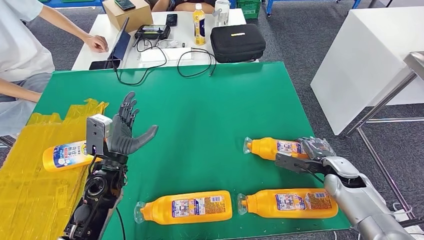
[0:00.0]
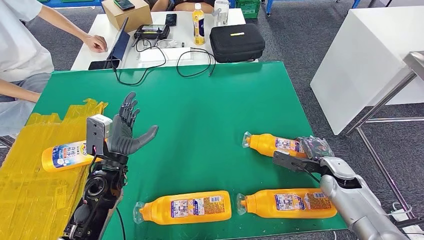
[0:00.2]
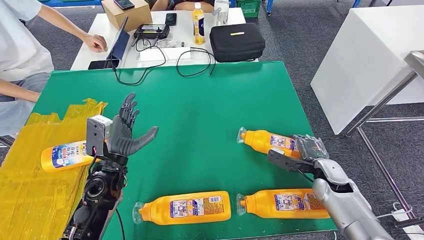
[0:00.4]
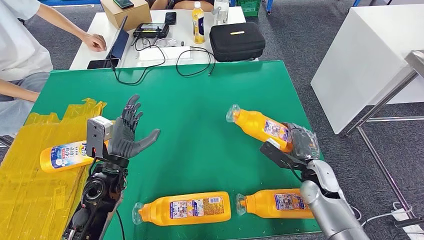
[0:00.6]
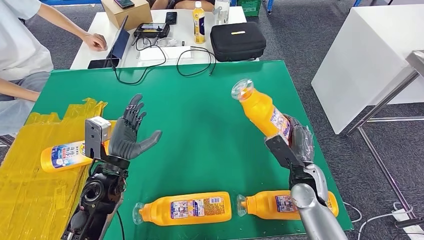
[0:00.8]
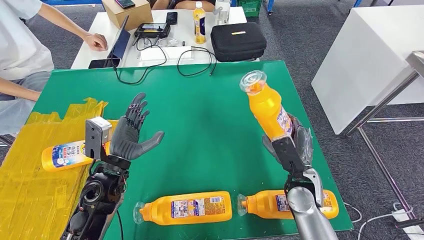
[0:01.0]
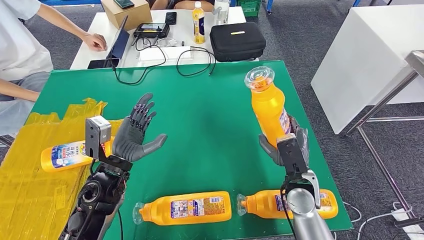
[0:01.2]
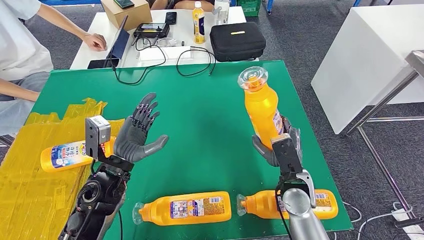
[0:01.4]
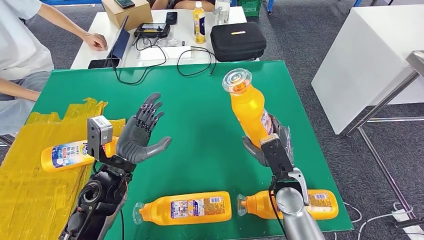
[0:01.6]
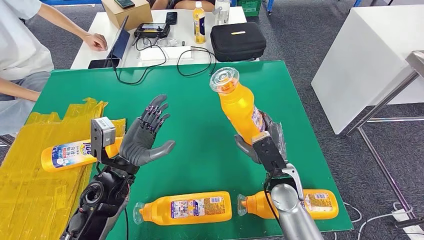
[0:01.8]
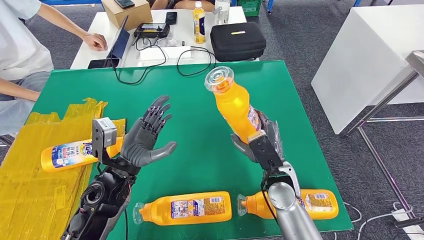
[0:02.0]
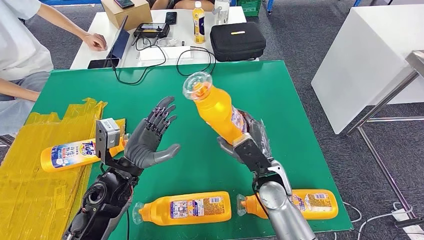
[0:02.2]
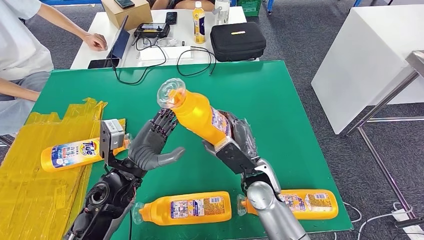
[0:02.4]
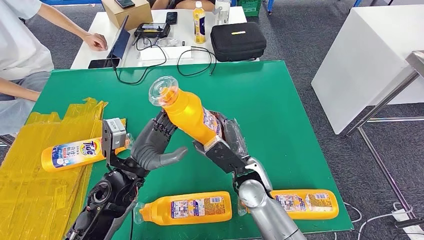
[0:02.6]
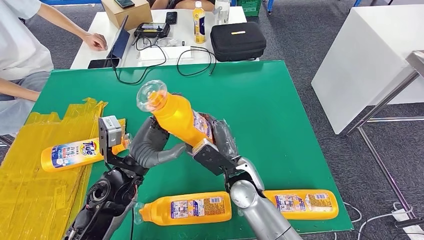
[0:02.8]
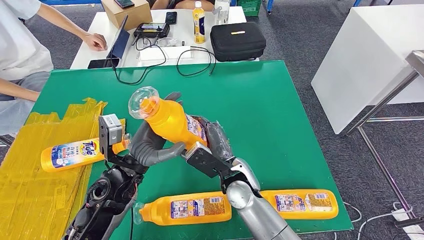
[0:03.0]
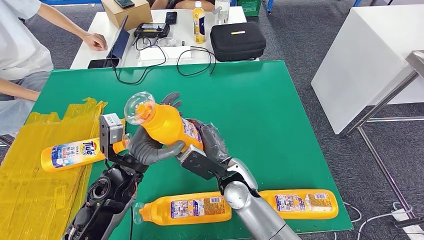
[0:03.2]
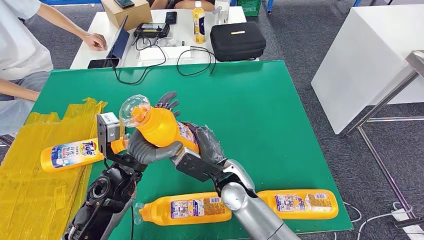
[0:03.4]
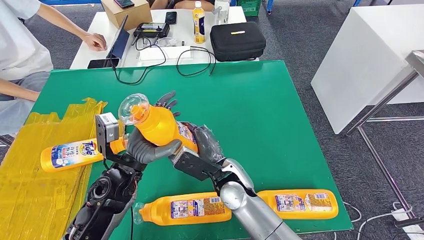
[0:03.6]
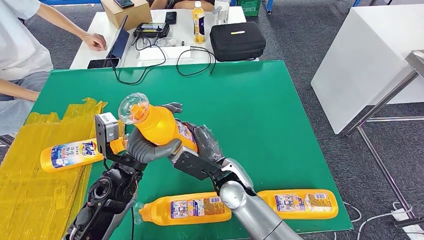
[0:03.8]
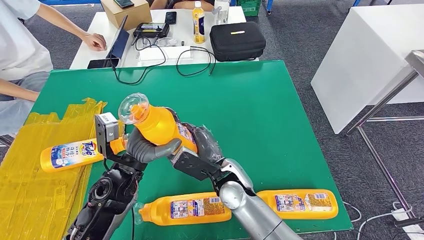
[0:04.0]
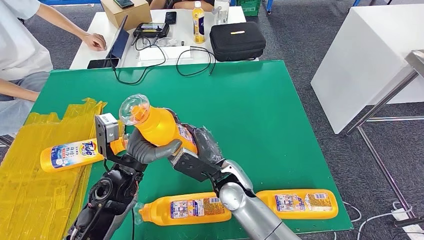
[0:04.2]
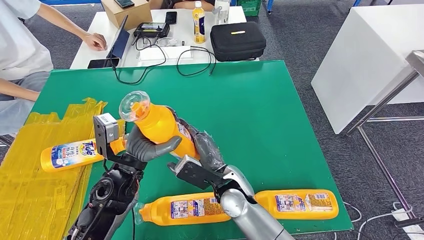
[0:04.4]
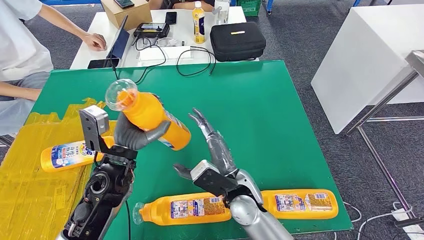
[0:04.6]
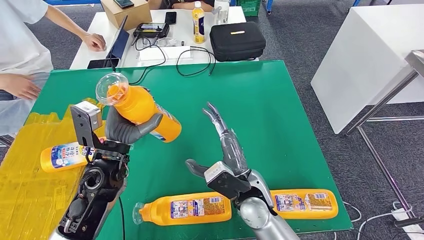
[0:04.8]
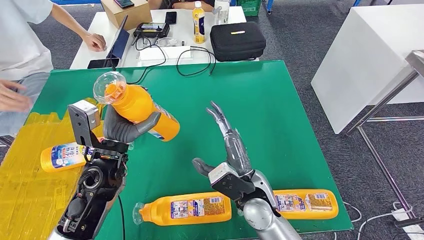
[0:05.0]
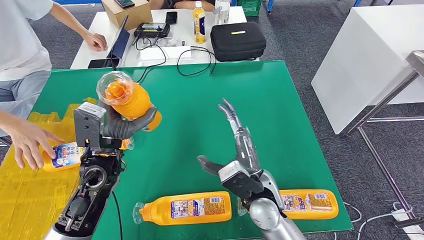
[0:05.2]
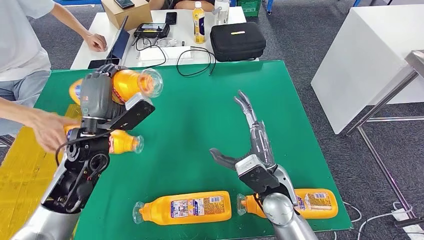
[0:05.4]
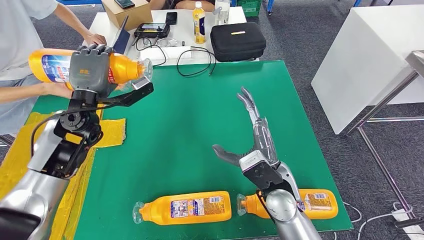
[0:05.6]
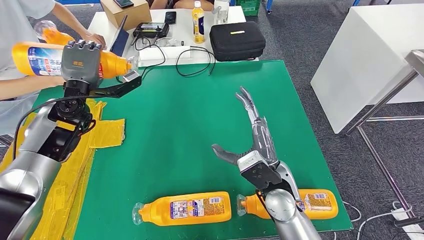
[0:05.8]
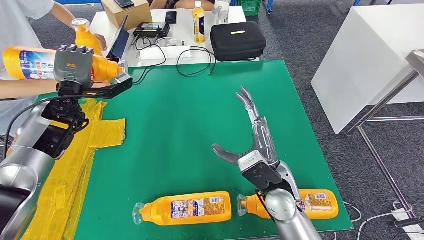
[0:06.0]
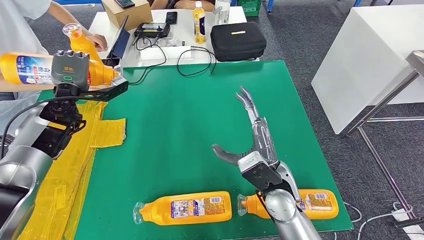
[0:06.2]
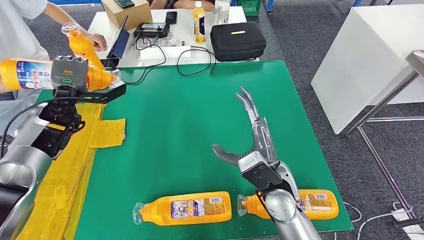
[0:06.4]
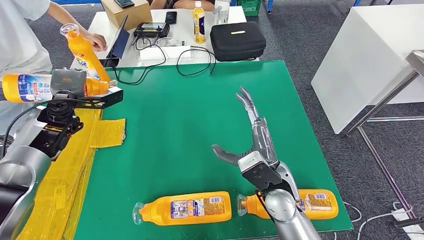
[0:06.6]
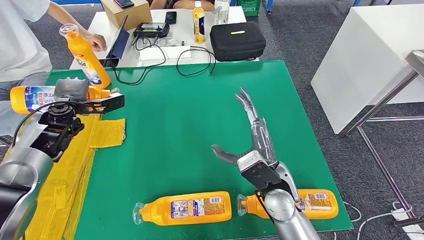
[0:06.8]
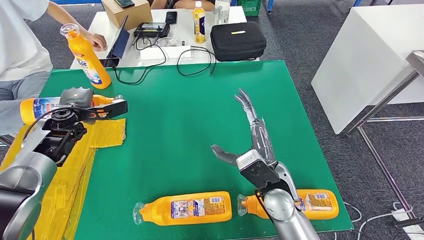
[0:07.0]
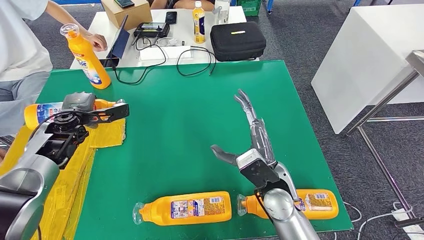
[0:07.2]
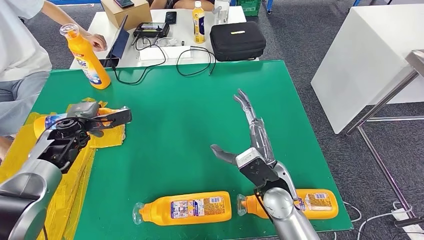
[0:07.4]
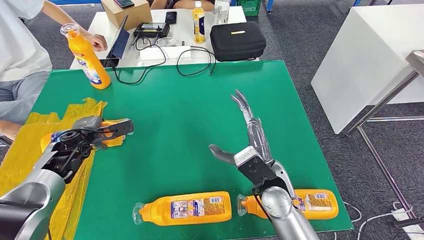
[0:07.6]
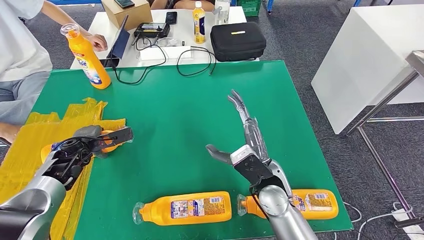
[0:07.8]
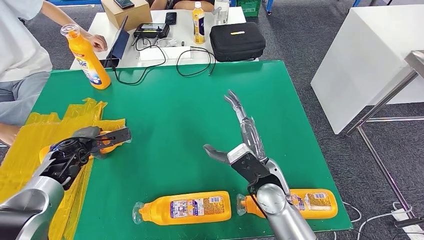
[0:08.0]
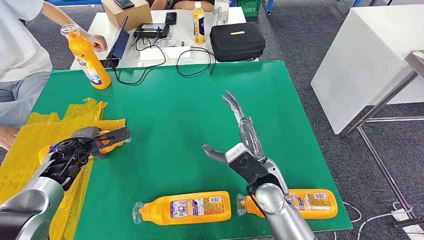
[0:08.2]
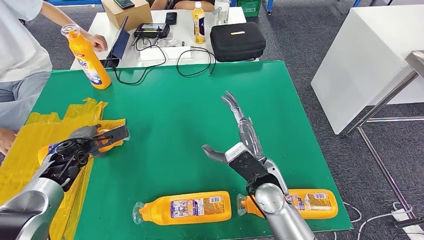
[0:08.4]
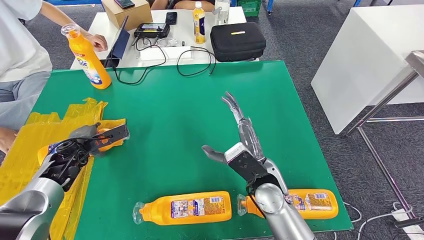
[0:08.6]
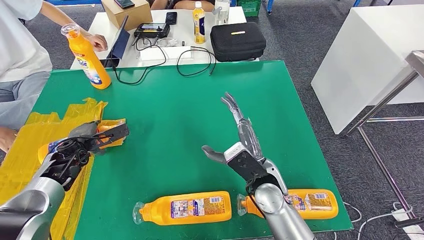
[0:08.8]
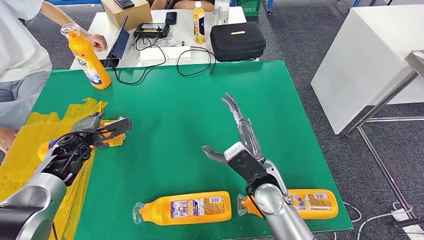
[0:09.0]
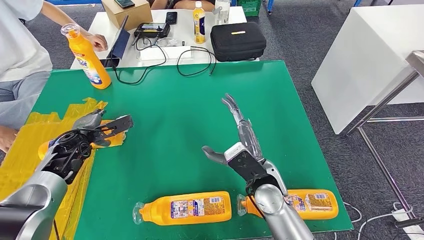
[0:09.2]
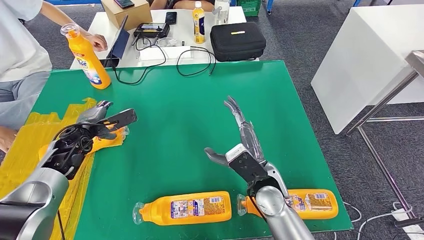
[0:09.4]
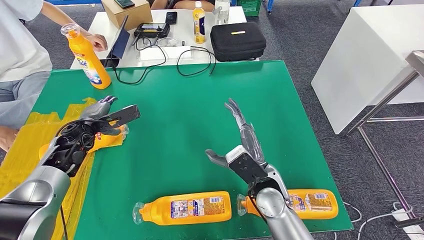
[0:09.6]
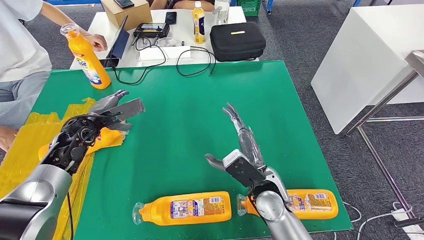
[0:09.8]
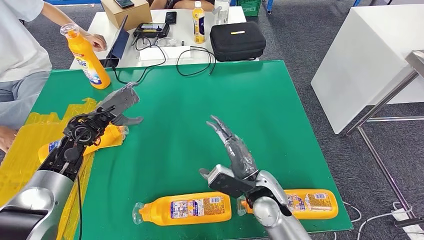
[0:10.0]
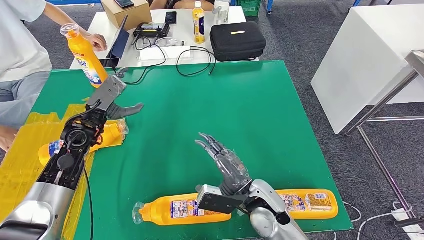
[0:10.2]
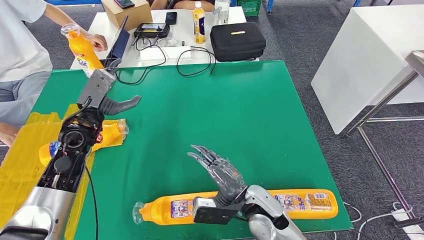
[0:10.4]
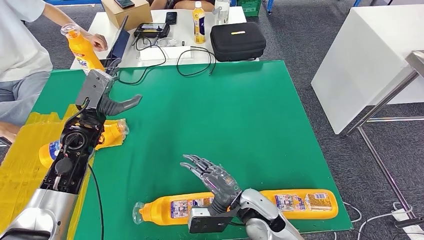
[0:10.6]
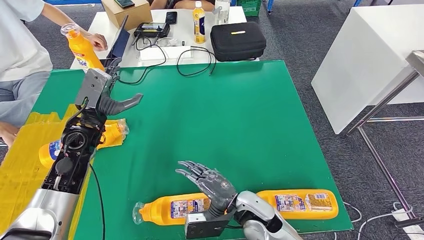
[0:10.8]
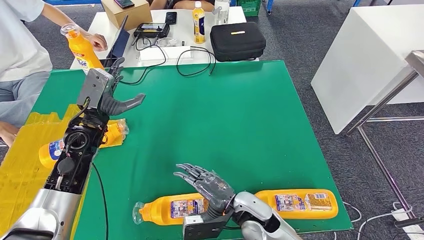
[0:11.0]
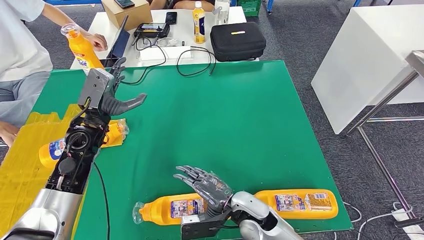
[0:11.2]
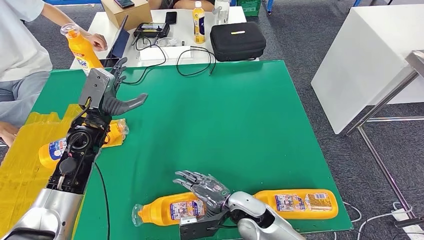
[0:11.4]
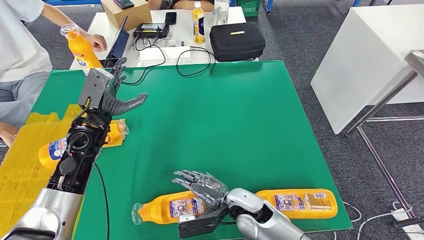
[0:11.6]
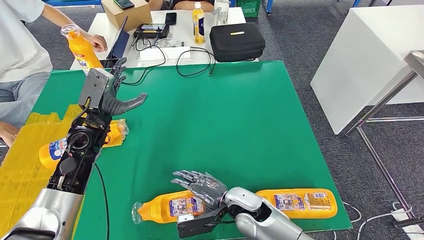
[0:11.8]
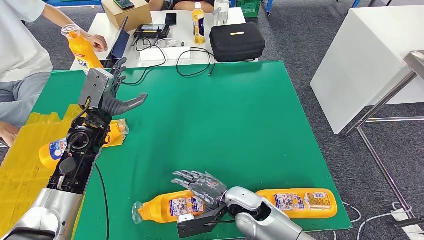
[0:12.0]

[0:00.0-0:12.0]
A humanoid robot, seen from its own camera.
Step, 0.0 to 3.4 s: Pick up the bottle from the table.
Step, 3.6 to 8.6 s: Flip the bottle to face forward.
1.6 to 3.0 s: The right hand is displaced to the left by approximately 15 cm.
3.0 to 4.4 s: There are only small adjustments of the hands.
6.0 to 7.6 s: The left hand shifts roughly 15 cm downward and backward.
7.6 to 9.0 s: The hands make only small movements.
9.0 to 10.4 s: The left hand goes some 10 cm upward and to the right. The right hand moves some 5 cm.

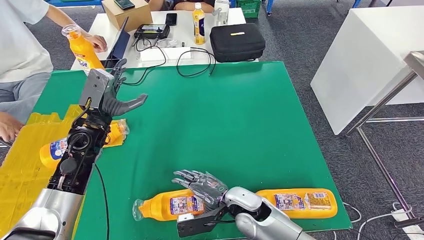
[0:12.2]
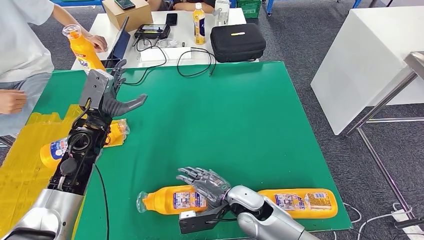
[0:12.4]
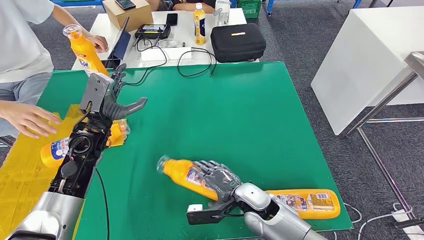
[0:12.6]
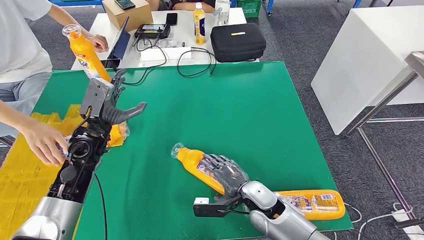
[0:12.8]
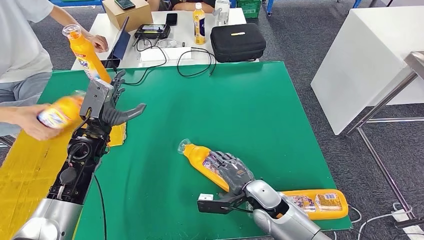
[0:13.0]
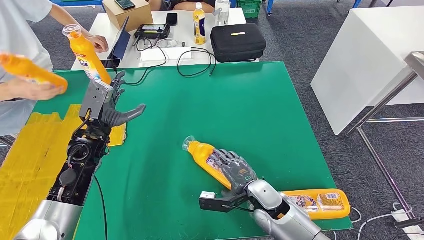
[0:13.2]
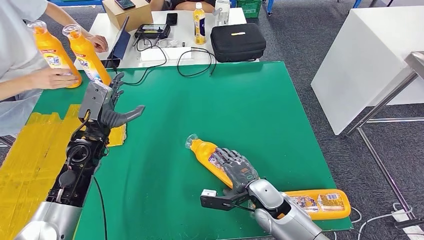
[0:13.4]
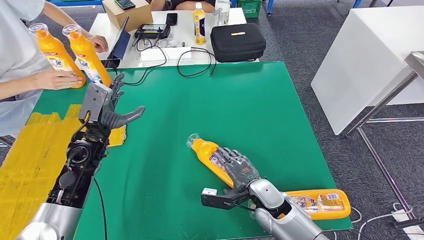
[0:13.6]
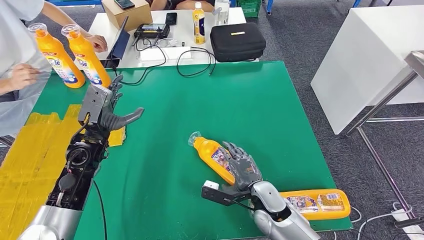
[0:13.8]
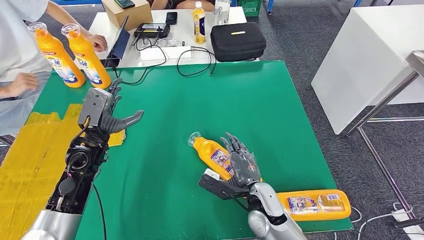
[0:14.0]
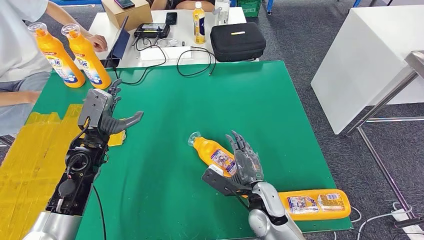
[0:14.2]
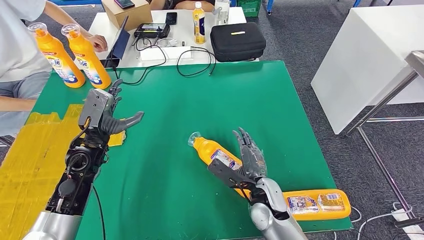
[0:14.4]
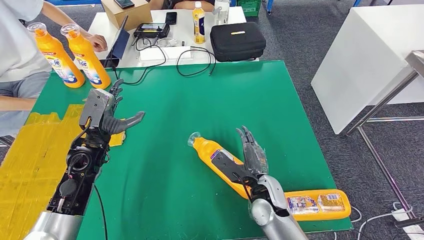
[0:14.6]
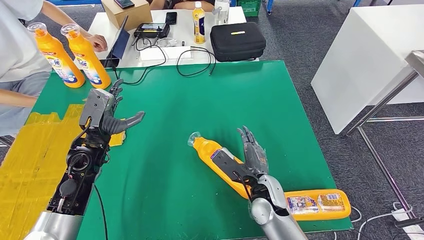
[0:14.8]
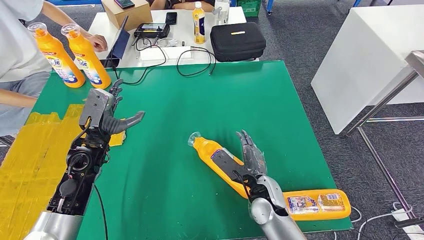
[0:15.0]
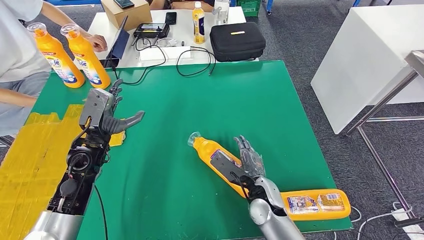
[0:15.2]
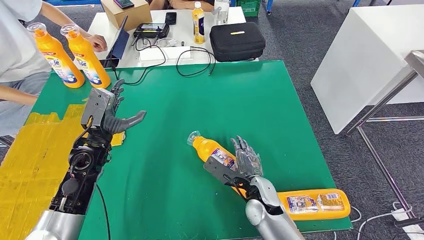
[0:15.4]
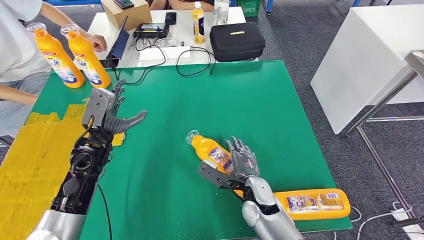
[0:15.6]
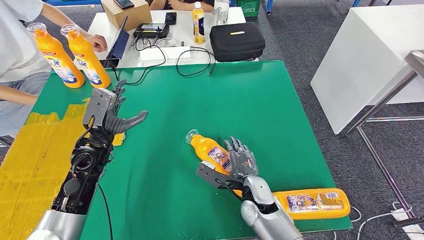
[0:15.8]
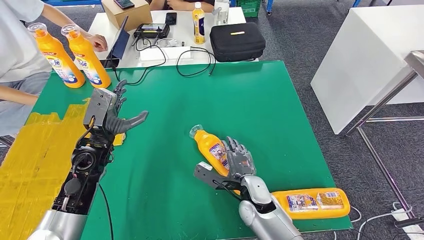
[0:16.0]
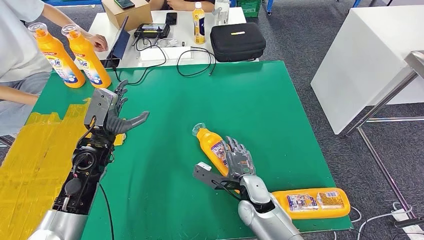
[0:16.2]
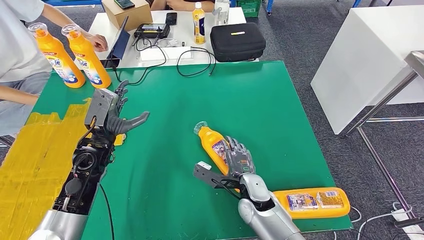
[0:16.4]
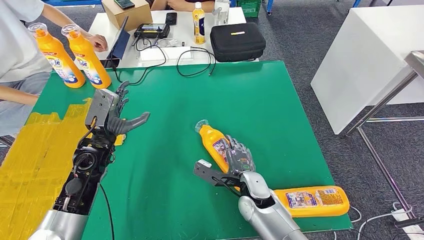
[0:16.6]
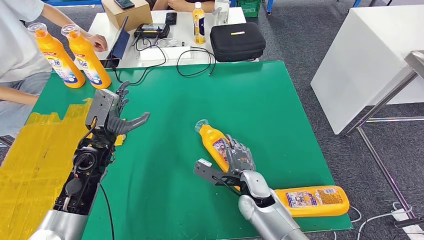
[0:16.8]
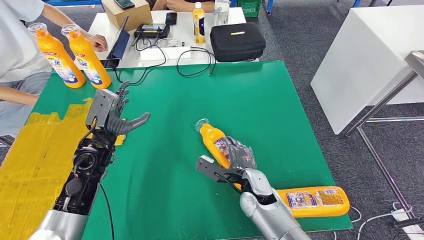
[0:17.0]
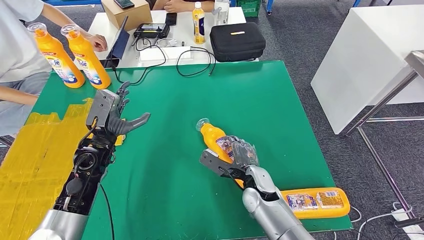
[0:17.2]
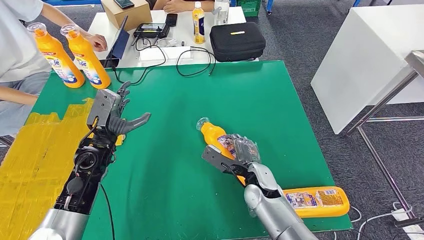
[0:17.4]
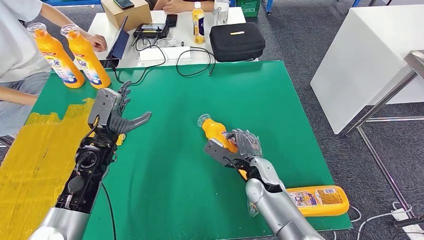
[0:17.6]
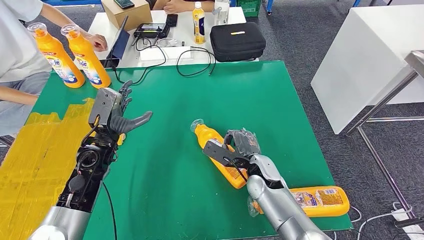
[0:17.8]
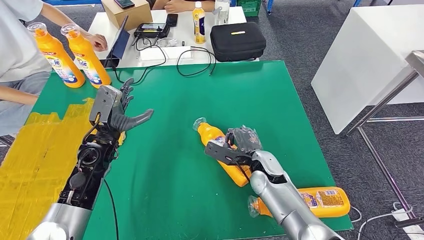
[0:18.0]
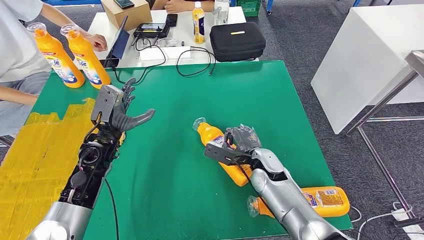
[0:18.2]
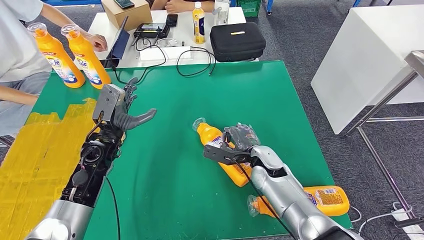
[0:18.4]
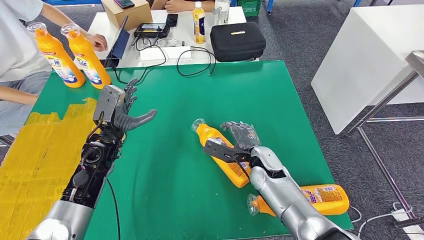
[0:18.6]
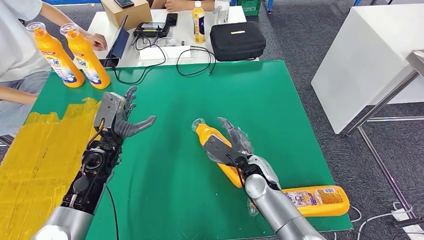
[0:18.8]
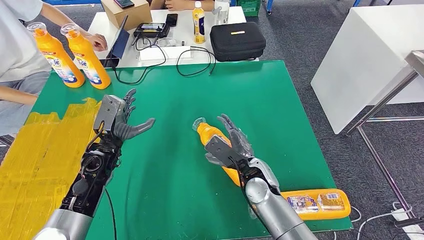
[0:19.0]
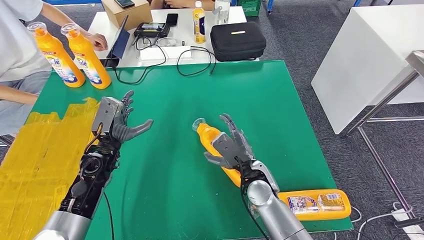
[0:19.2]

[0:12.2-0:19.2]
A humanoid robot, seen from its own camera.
16.4 to 17.8 s: The right hand moves roughly 5 cm.
